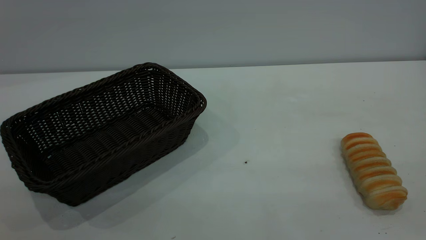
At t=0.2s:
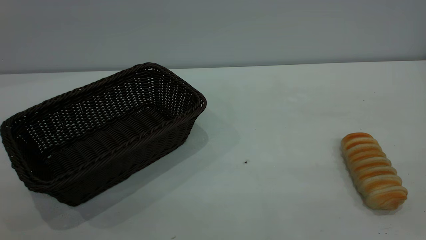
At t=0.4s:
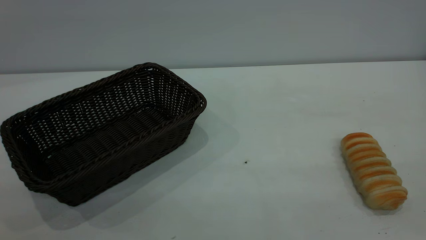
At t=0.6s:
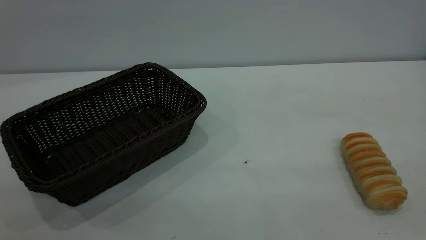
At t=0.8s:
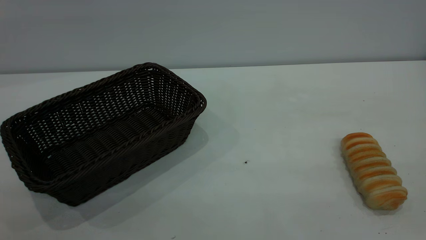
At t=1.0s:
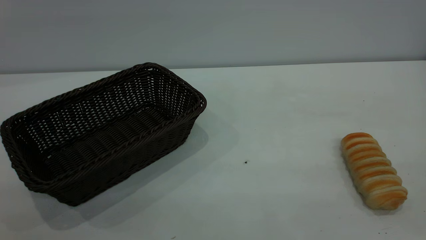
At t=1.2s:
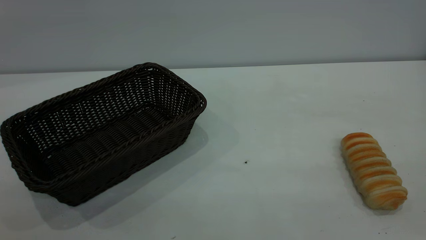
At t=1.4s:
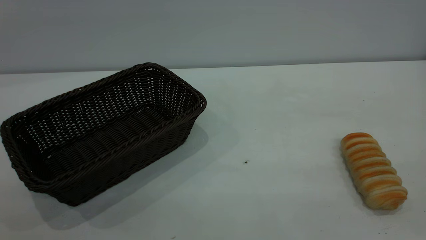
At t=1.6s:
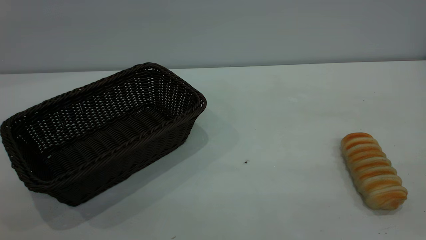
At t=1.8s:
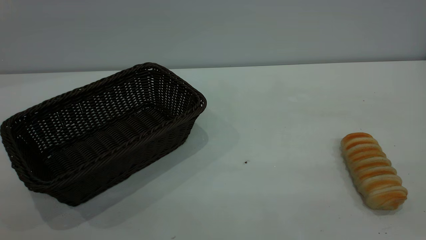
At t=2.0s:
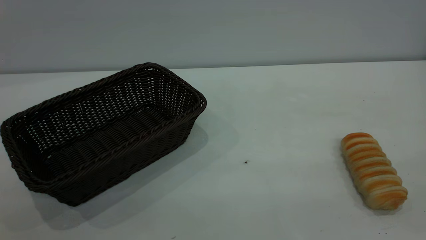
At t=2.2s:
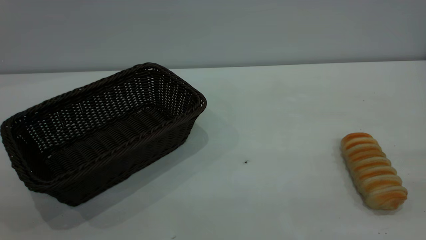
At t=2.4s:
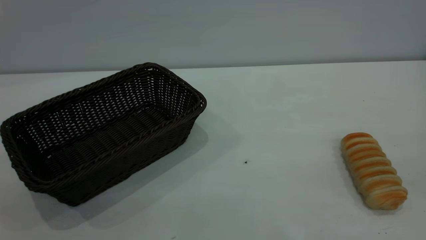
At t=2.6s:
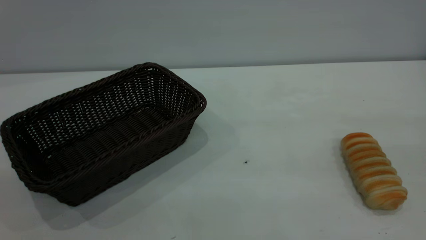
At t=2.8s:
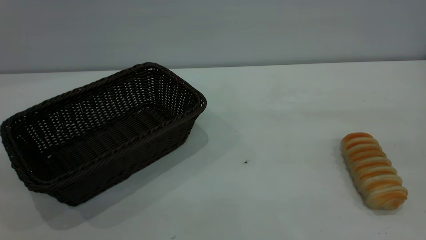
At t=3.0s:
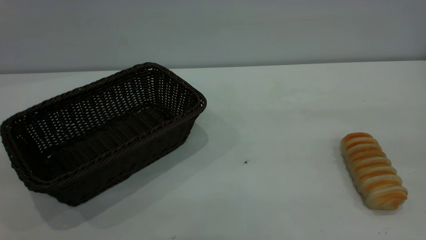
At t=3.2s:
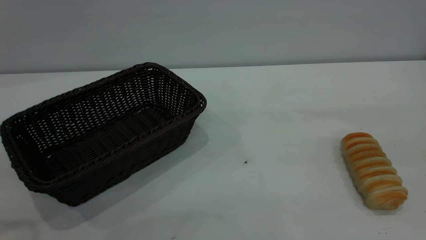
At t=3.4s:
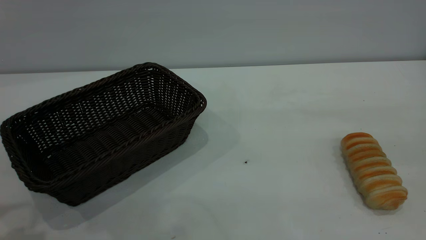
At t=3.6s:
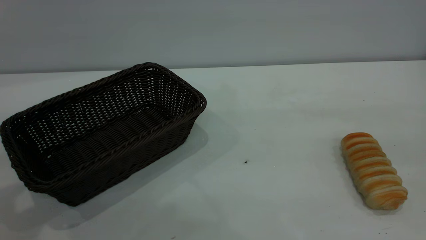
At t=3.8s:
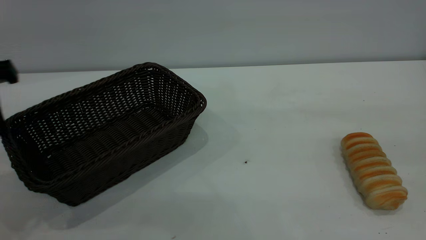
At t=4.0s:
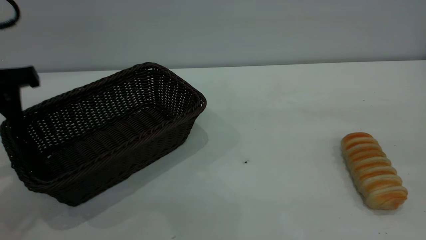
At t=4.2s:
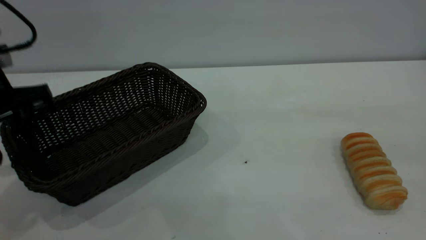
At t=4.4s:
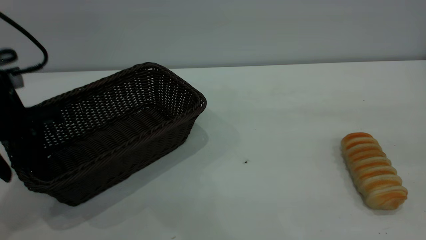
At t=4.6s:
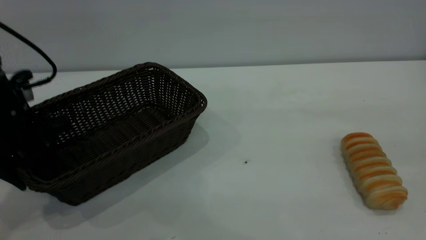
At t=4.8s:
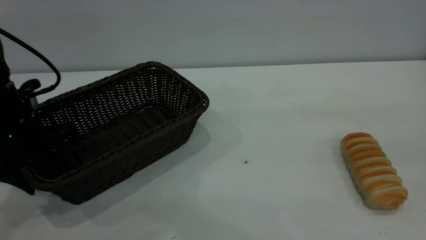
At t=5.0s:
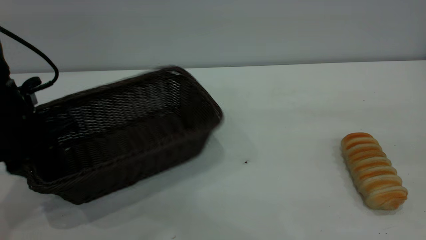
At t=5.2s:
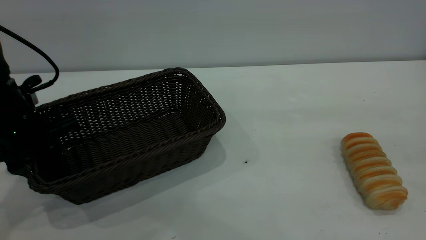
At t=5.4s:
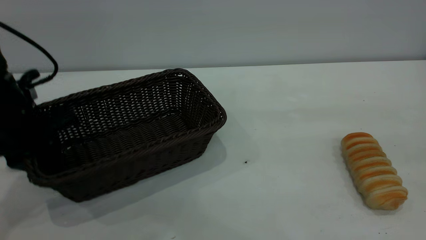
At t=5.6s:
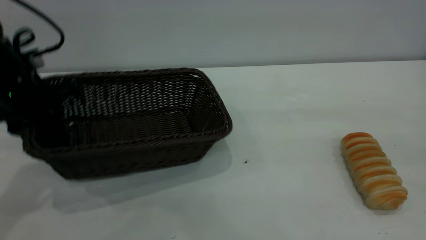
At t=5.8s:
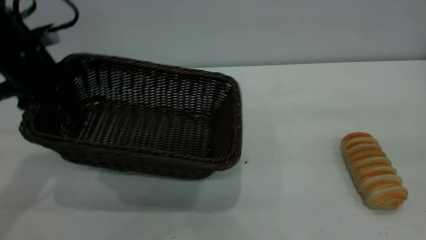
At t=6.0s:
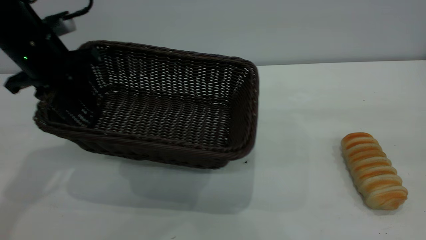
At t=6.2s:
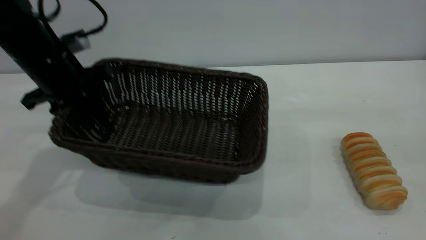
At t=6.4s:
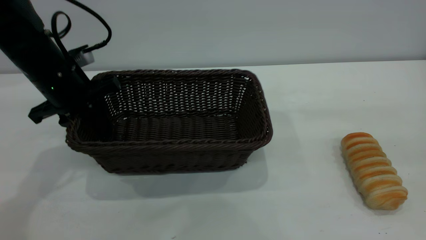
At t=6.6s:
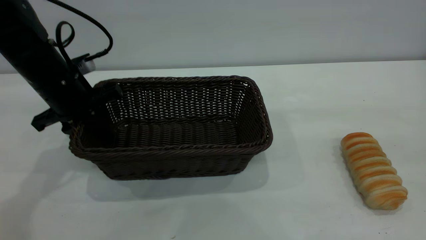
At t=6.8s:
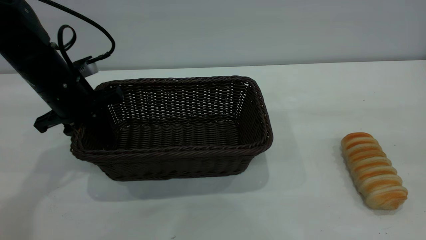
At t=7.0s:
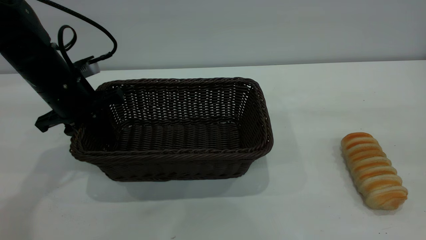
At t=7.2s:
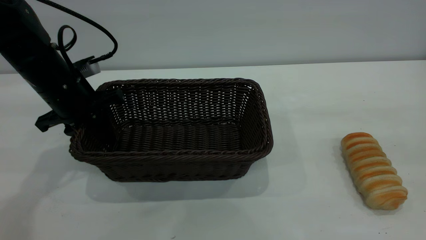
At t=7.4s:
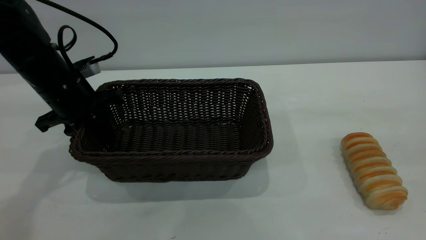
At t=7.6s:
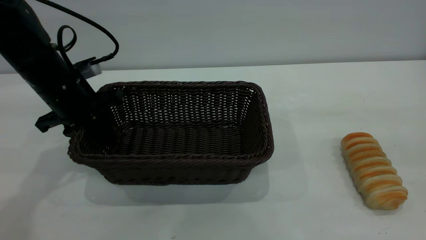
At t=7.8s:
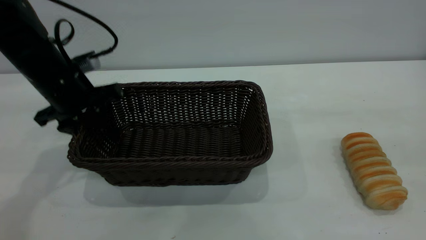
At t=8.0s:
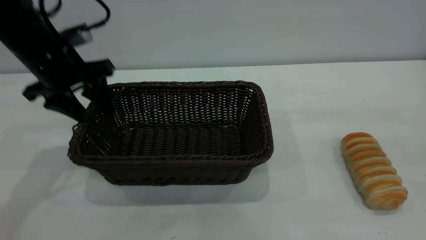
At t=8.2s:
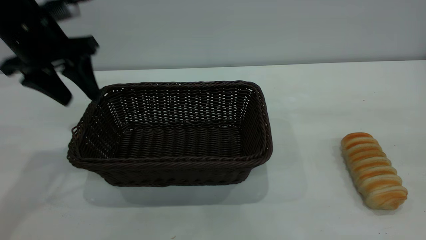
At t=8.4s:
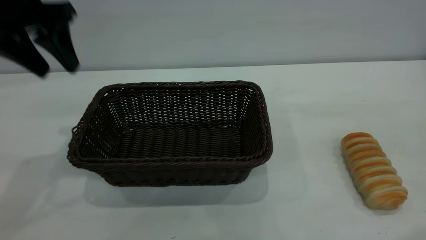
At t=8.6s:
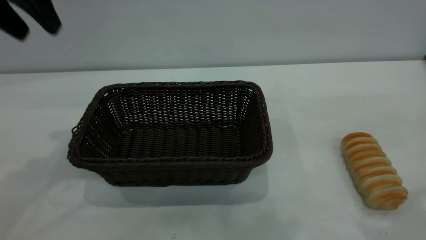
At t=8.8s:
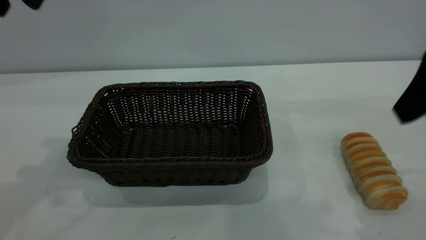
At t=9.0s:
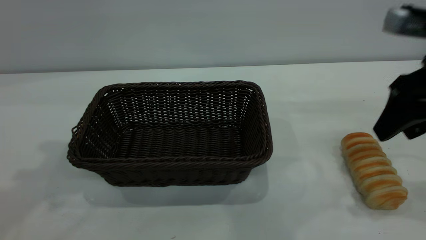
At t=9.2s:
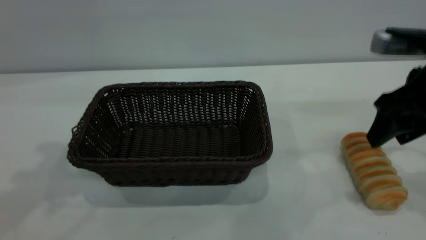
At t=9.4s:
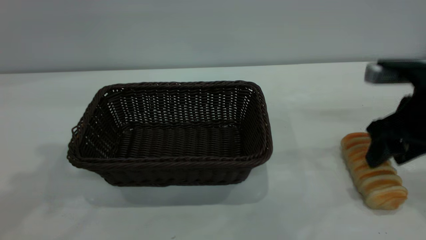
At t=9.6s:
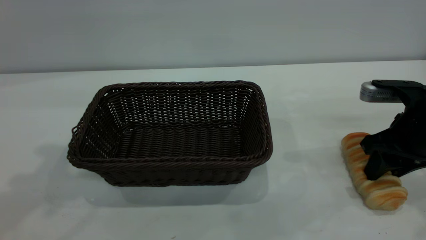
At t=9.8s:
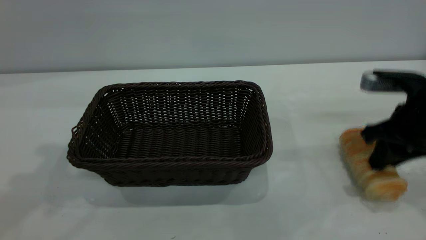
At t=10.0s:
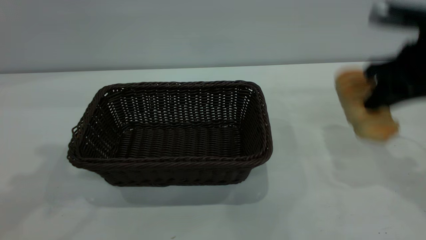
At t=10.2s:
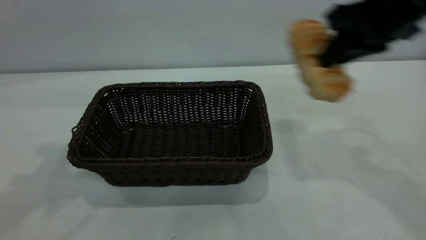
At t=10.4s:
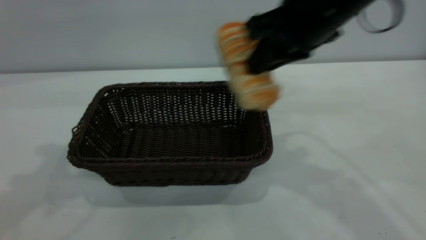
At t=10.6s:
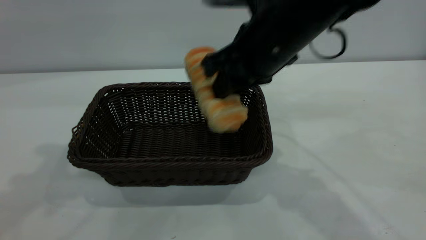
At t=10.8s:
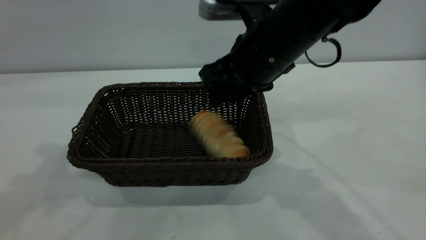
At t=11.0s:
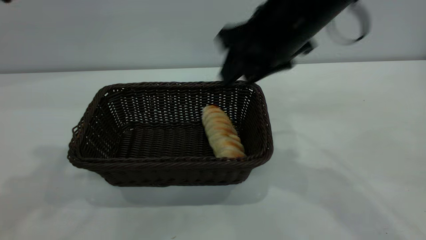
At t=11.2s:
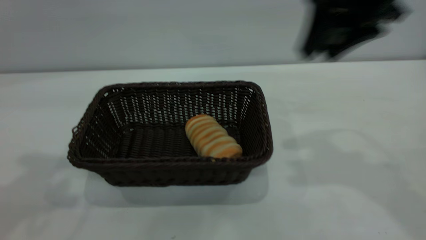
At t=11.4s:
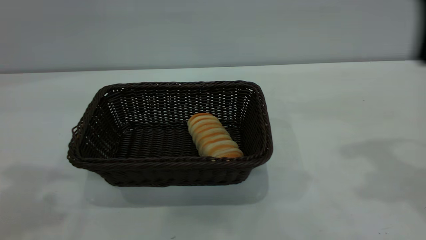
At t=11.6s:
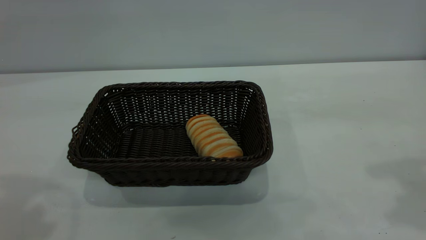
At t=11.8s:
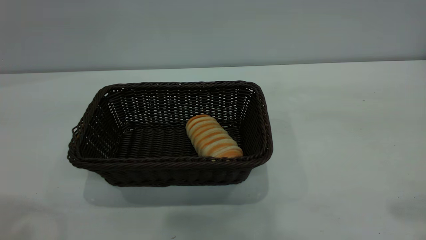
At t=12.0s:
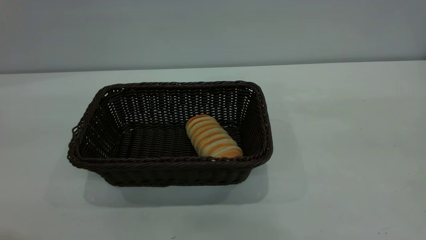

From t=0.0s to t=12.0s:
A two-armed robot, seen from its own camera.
Task of the whole recording: One hand grasps the black basket and places it in the middle of the table, while the other hand picks up the long bread and puts it into the black basket.
Step, from t=0.0s to t=8.2s: Move the basket to the center of view.
Step, from t=10.2s to t=11.0s: place the bread into the basket.
From t=3.0s to t=4.4s: The left gripper goes roughly 25 cm forward and downward.
From t=4.4s to t=6.0s: The left gripper heads forward, covering about 5 cm, and closes its fingers.
From t=6.0s to t=7.6s: The left gripper goes approximately 5 cm downward.
From t=7.6s to t=9.0s: The left gripper goes about 25 cm upward, and opens up, while the right gripper is displaced forward and downward by some 25 cm.
From t=9.0s to t=10.4s: The right gripper travels to the left by approximately 15 cm, and closes its fingers.
From t=10.4s to t=12.0s: The left gripper heads backward, covering some 15 cm; the right gripper goes some 30 cm backward, to the right and upward, and opens.

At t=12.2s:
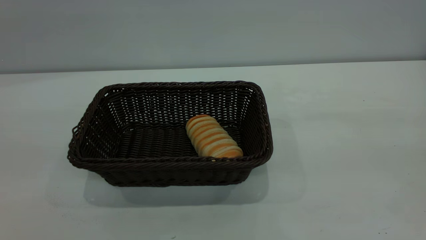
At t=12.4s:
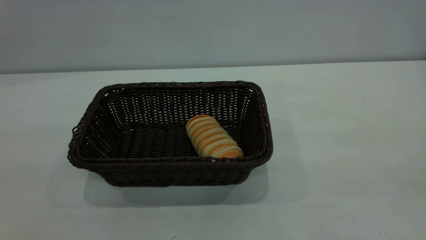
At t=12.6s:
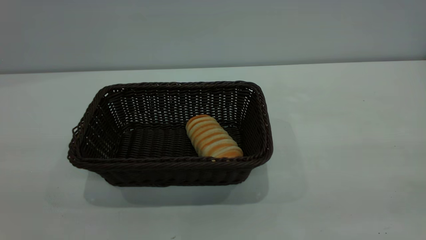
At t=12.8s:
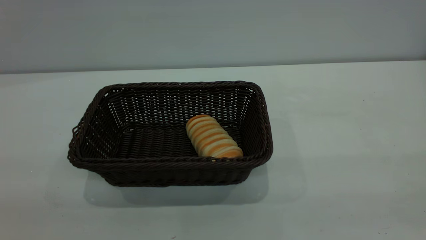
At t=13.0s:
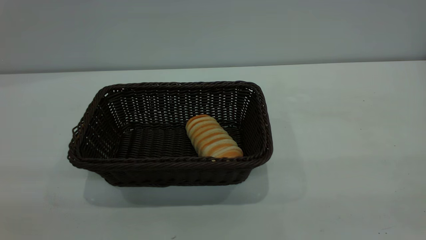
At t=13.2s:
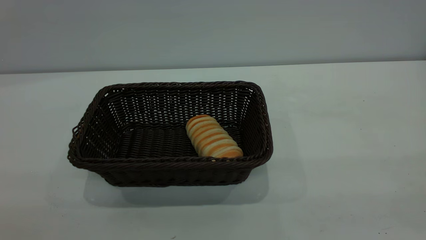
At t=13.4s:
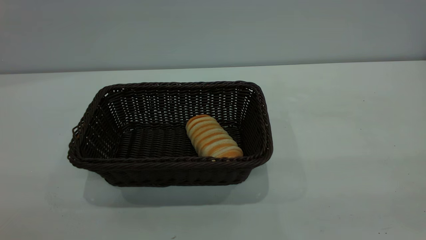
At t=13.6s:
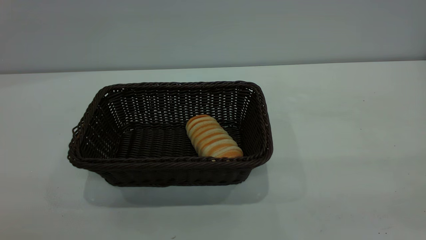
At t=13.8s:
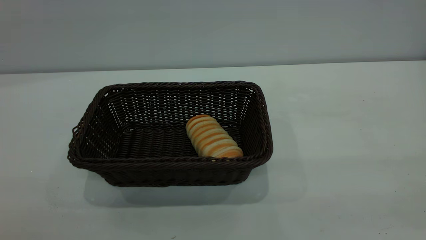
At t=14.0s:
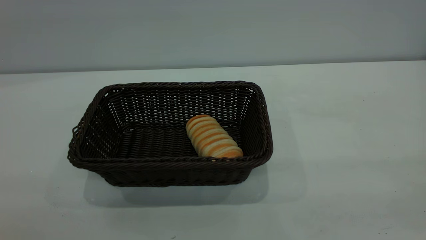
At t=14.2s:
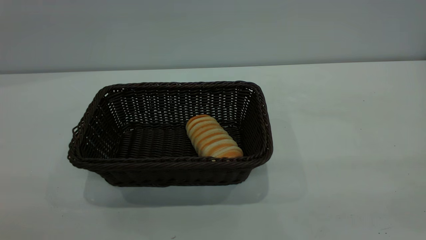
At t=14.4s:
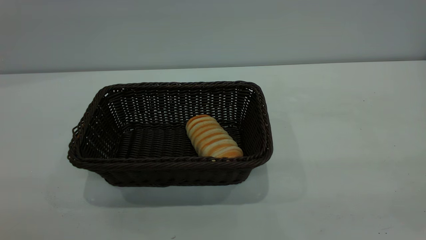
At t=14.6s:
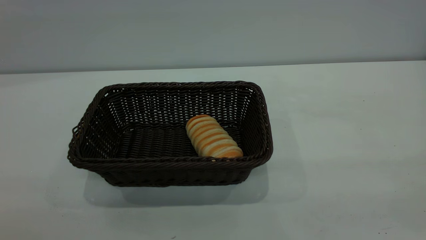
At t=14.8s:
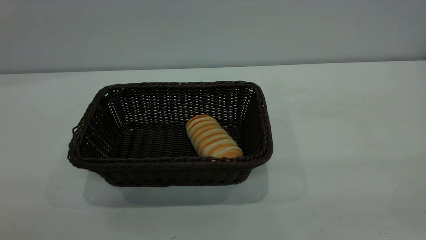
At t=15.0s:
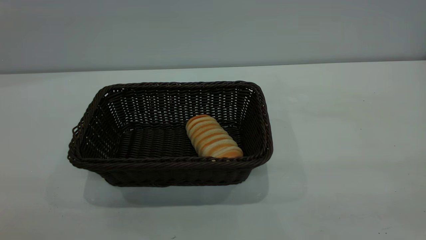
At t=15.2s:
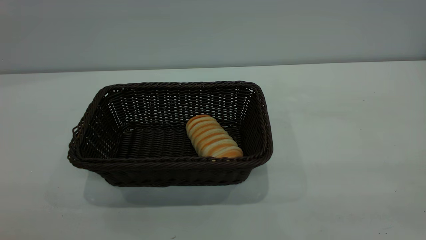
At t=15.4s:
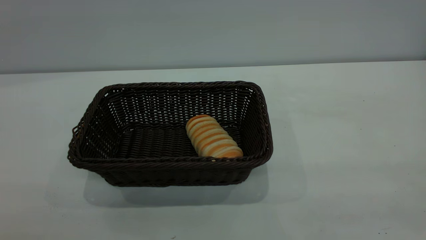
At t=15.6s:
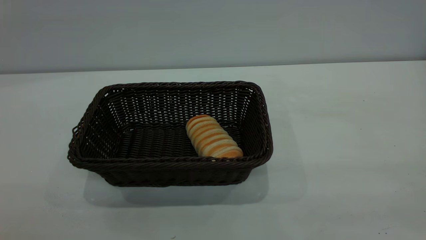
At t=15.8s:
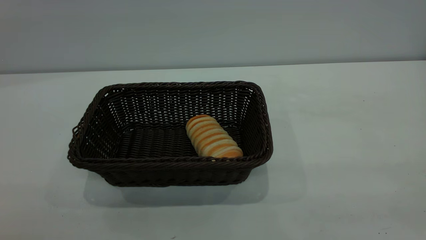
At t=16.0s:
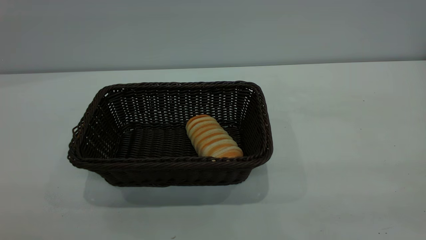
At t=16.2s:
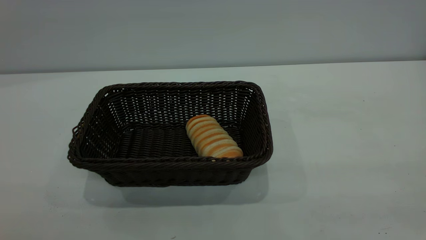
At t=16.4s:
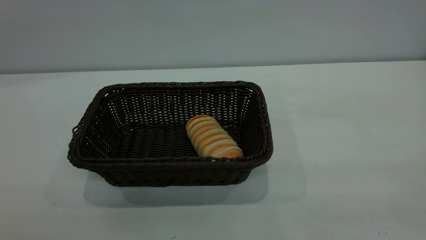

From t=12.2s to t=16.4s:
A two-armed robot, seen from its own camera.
Task of the whole recording: One hand grasps the black basket and places it in the middle of the table, while the other hand picks up the long bread and puts it into the black basket.
From t=15.0s to t=16.4s: The two grippers keep their place.
